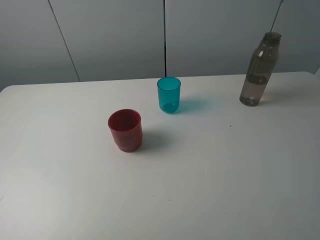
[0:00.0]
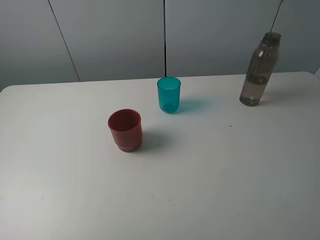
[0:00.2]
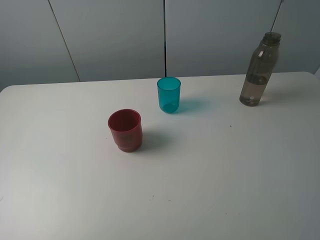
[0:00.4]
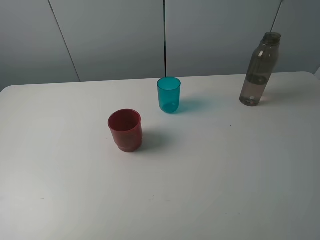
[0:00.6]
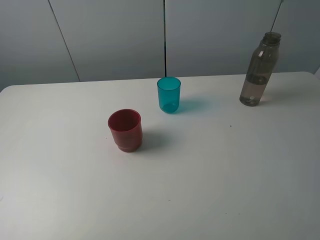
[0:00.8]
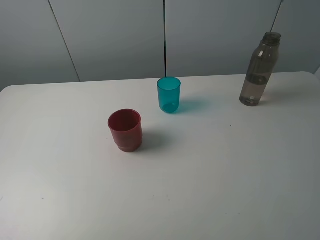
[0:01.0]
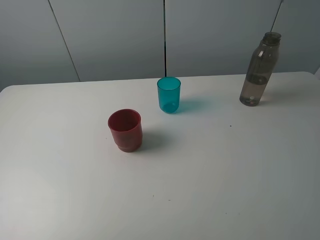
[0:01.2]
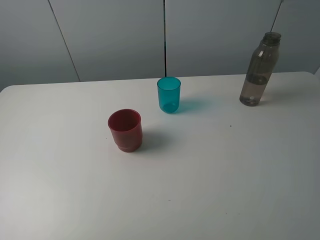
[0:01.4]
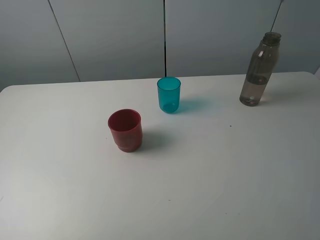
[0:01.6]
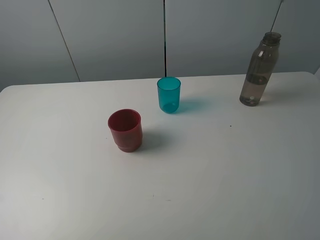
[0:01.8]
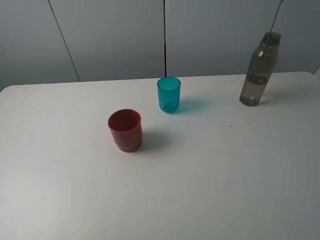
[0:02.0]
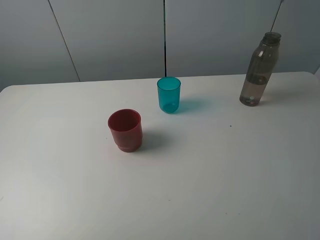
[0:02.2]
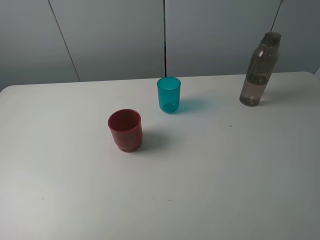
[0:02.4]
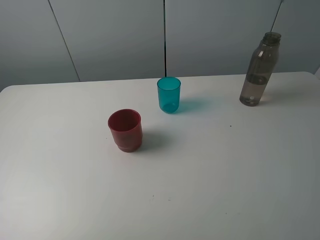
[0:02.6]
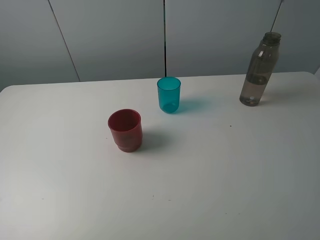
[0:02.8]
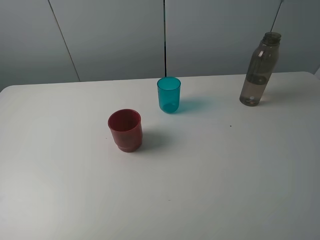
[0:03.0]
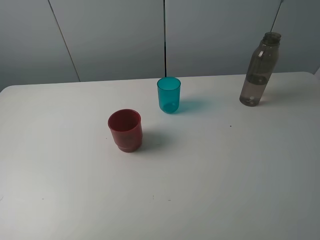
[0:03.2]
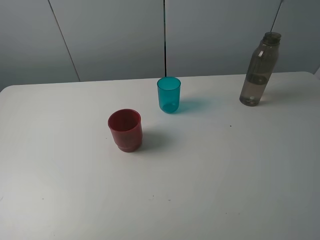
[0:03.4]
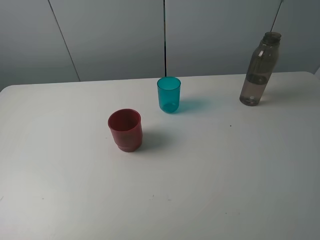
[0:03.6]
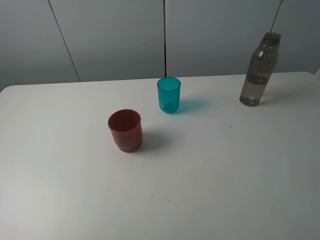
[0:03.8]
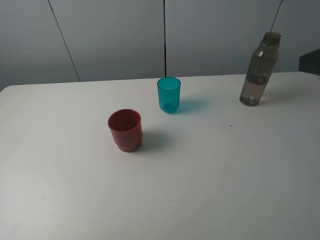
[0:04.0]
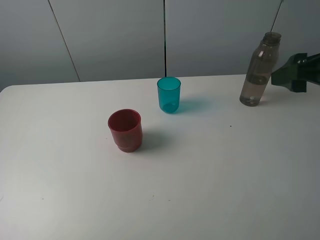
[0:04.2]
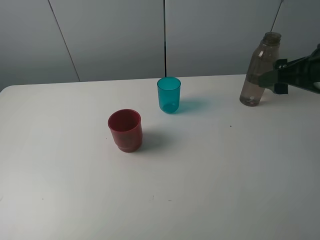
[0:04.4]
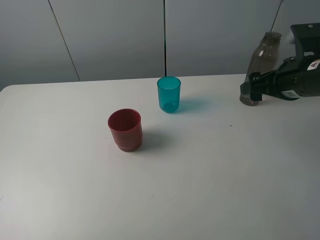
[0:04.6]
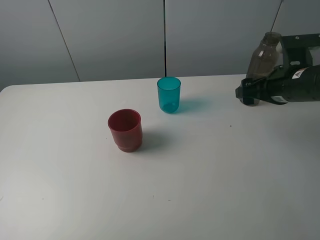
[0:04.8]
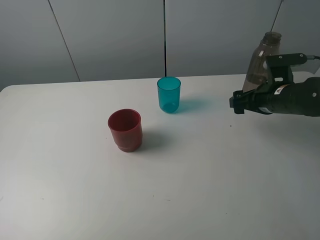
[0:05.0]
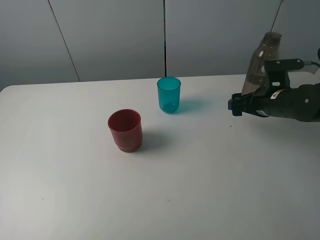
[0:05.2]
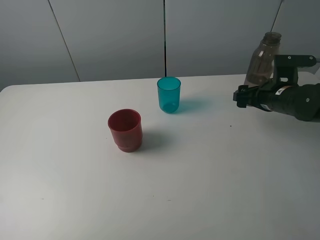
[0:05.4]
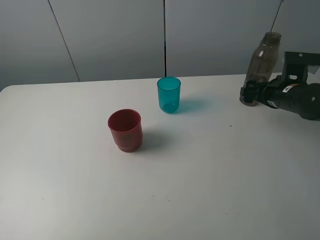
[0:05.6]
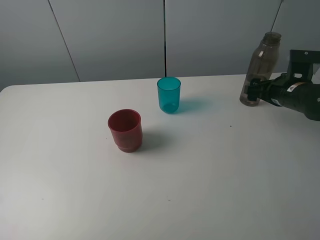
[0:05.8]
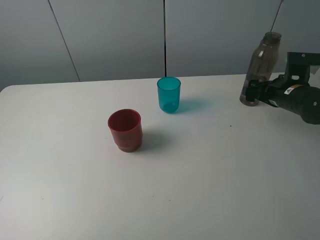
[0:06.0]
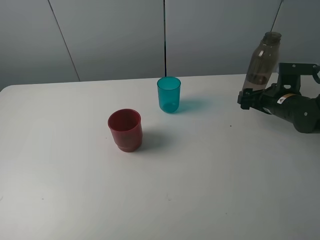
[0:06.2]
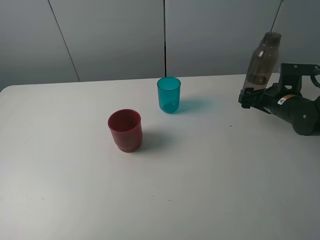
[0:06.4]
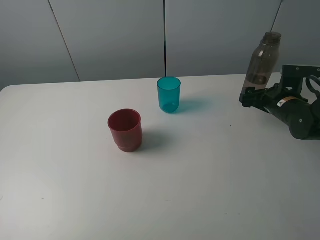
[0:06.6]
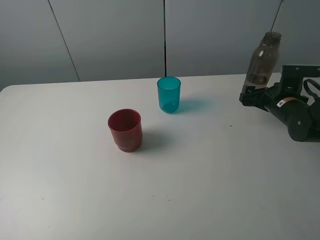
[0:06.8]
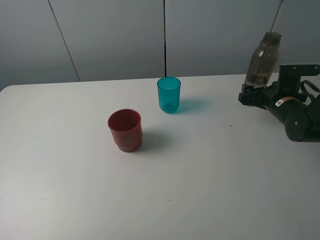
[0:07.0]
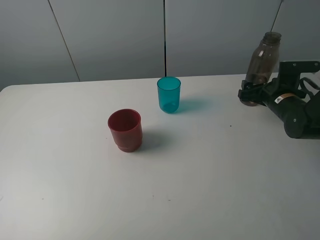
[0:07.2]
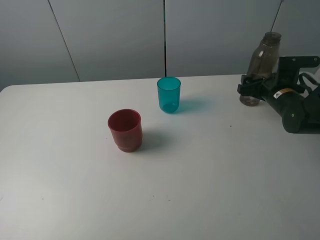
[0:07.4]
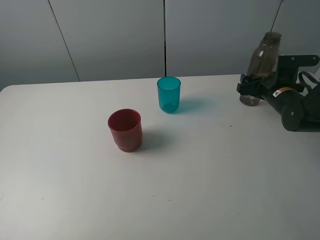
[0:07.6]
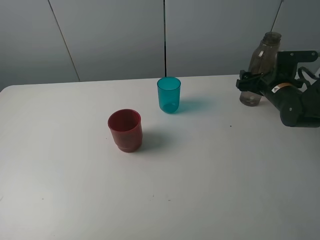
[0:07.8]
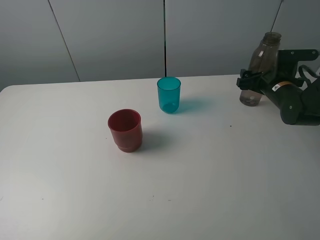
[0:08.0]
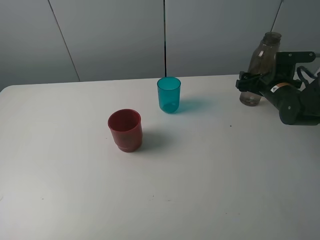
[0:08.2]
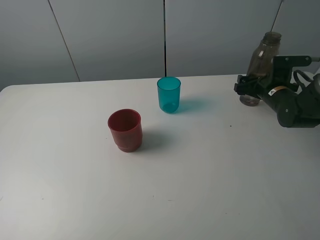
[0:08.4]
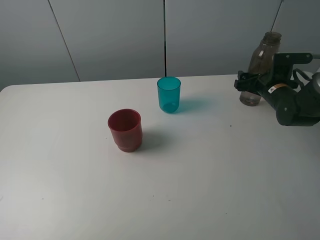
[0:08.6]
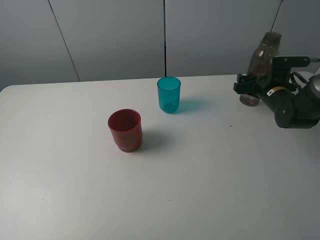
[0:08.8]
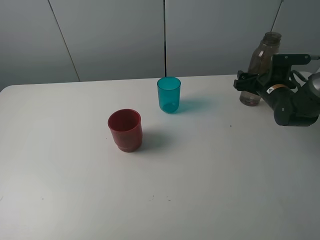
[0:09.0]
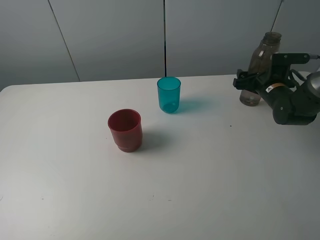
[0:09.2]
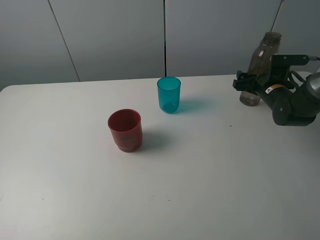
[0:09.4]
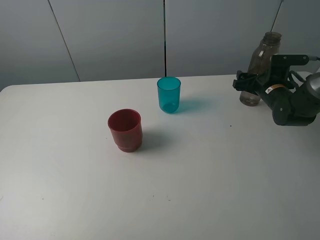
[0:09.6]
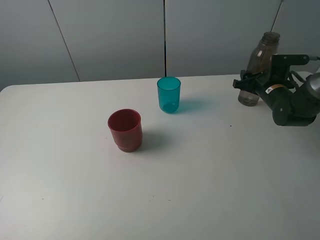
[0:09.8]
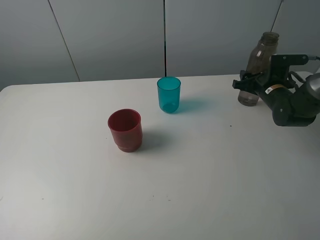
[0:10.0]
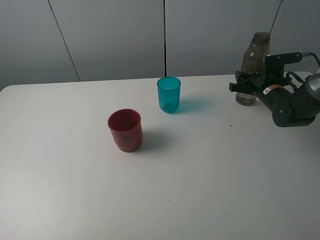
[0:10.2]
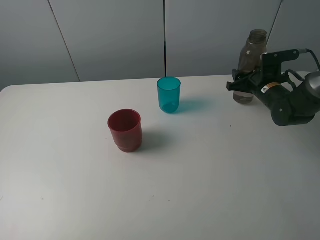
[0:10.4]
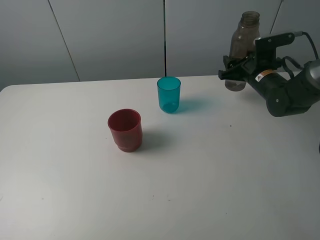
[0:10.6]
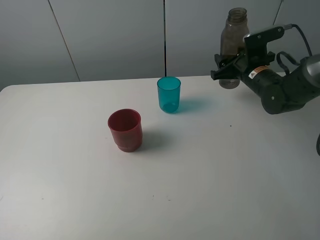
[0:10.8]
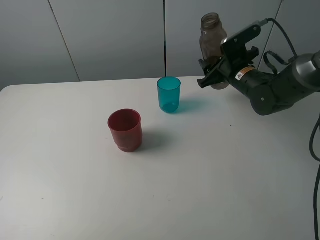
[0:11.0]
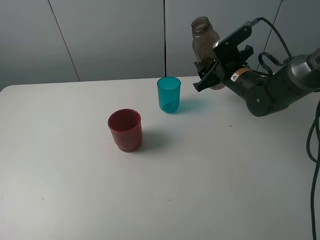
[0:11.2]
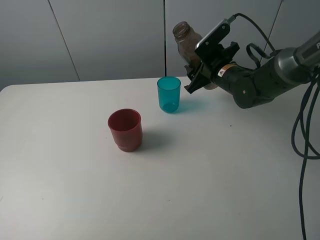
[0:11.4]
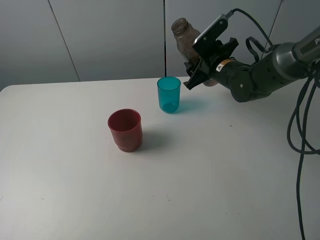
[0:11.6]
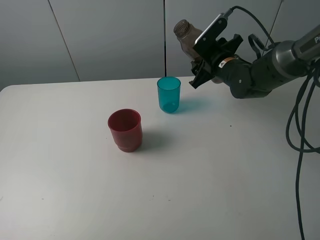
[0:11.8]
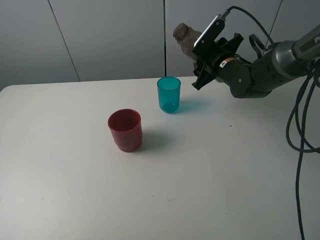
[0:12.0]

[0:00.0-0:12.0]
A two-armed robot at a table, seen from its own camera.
Task of the whole recording: pick up the bottle and pour water into the cup, then pick up the cup containing water and pour it into another cup.
Step, 0:00.0 to 0:10.0: Grasp the brown bottle with the right gripper.
0:00.0 to 0:03.0: The two grippers keep their place.
0:03.0 to 0:04.4: The right gripper goes approximately 25 cm forward.
0:04.4 to 0:06.0: The right gripper moves downward and forward, some 15 cm.
0:06.0 to 0:07.6: The grippers stay close to where they were, moving slightly.
0:07.6 to 0:09.0: The grippers make only small movements.
0:09.0 to 0:10.4: The right gripper closes up.
0:10.4 to 0:12.0: The right gripper heads to the left and upward, covering roughly 10 cm.

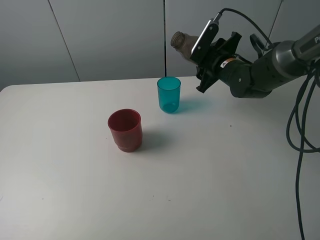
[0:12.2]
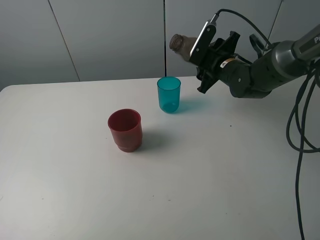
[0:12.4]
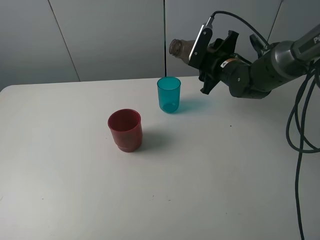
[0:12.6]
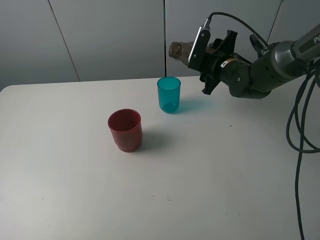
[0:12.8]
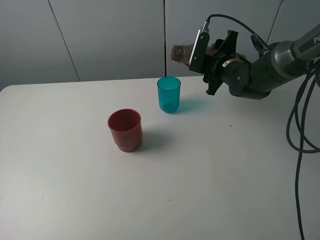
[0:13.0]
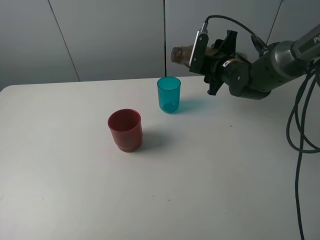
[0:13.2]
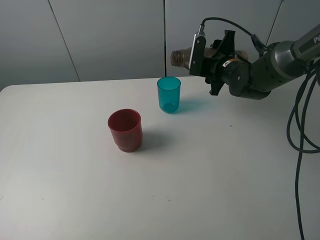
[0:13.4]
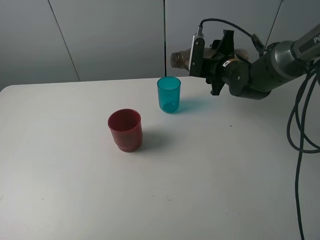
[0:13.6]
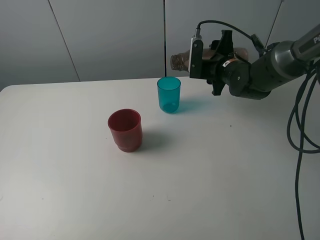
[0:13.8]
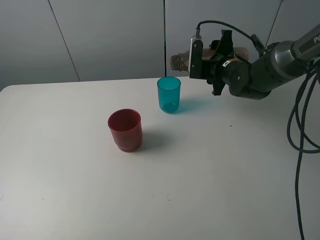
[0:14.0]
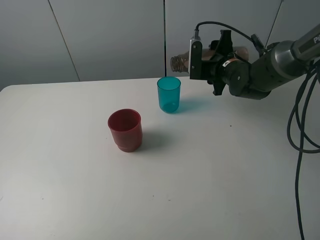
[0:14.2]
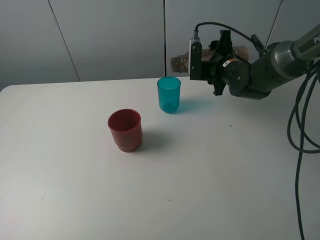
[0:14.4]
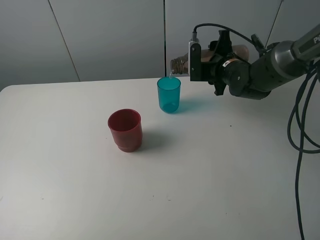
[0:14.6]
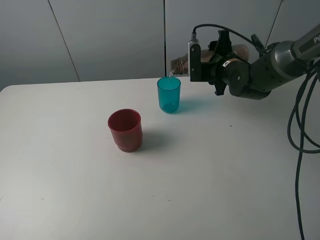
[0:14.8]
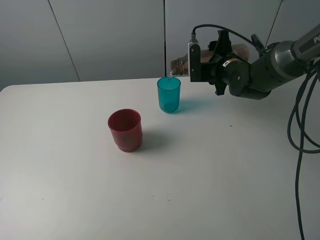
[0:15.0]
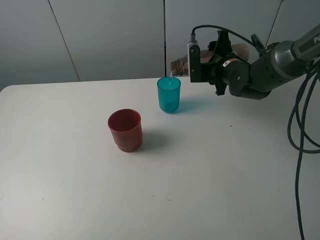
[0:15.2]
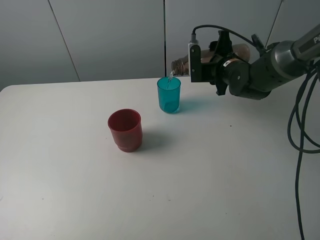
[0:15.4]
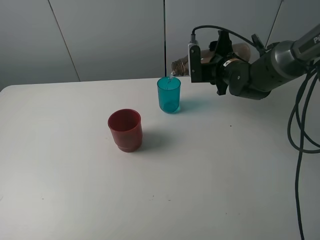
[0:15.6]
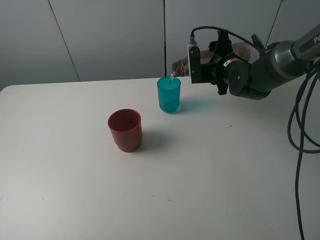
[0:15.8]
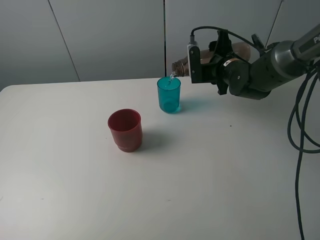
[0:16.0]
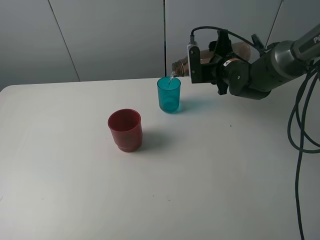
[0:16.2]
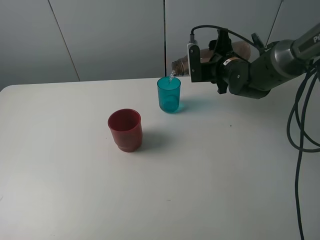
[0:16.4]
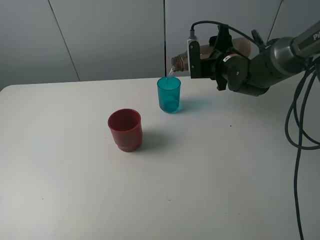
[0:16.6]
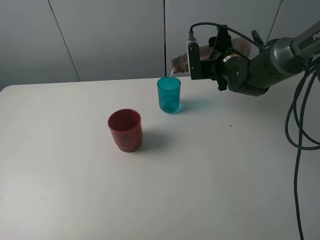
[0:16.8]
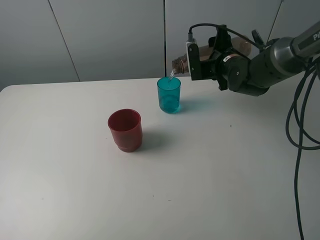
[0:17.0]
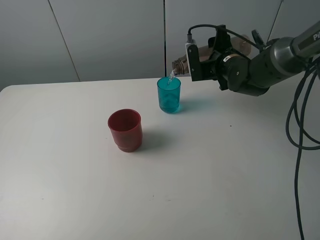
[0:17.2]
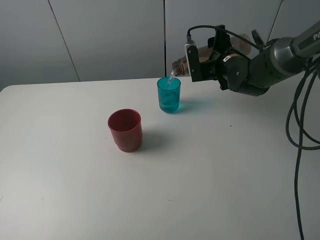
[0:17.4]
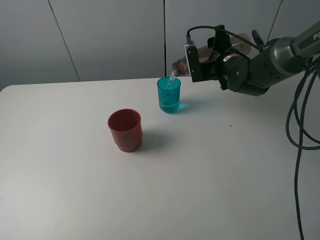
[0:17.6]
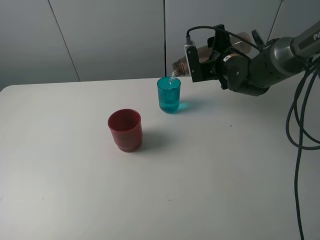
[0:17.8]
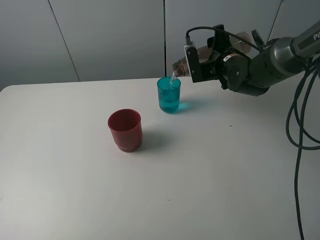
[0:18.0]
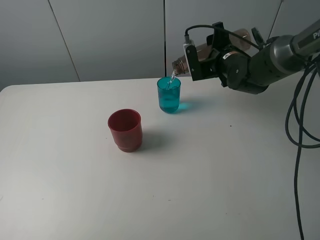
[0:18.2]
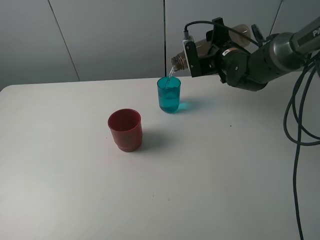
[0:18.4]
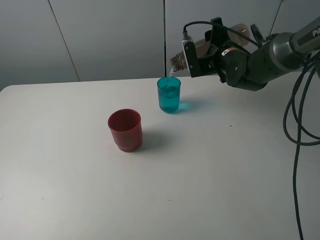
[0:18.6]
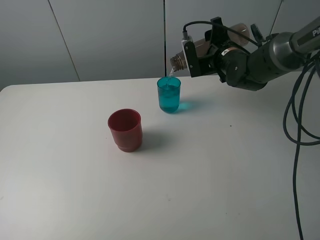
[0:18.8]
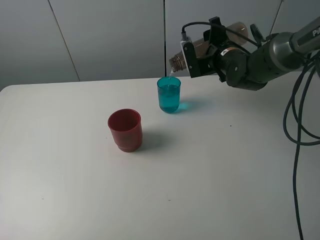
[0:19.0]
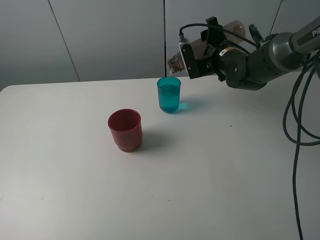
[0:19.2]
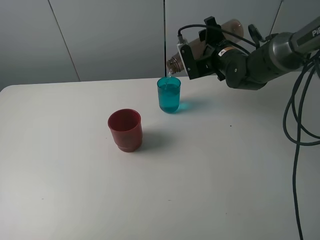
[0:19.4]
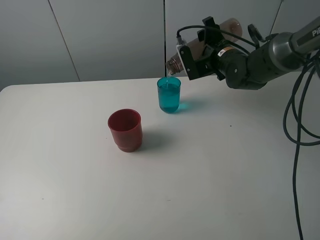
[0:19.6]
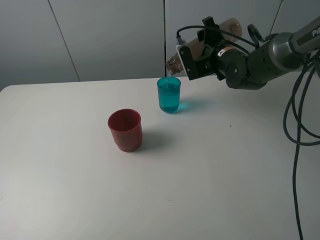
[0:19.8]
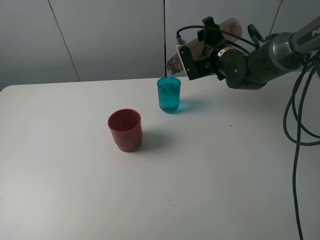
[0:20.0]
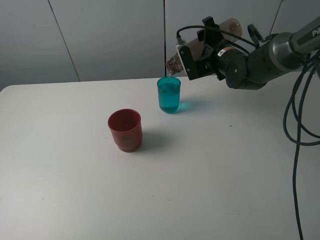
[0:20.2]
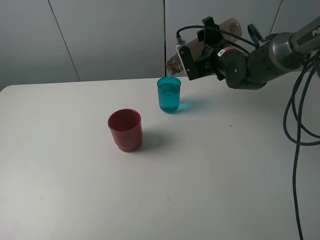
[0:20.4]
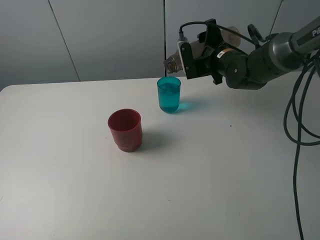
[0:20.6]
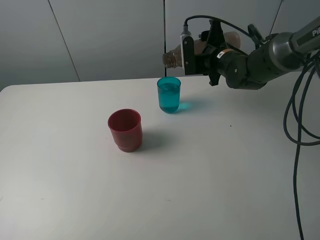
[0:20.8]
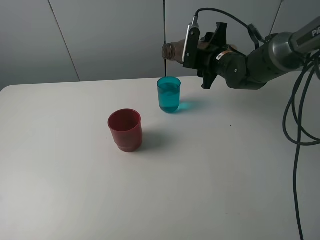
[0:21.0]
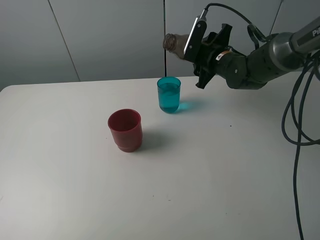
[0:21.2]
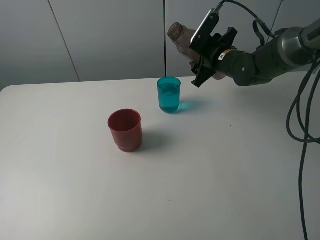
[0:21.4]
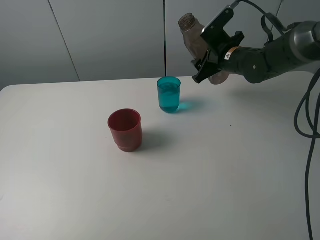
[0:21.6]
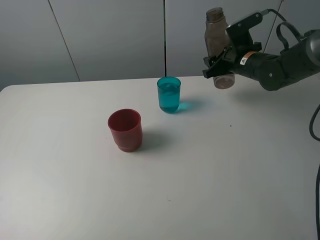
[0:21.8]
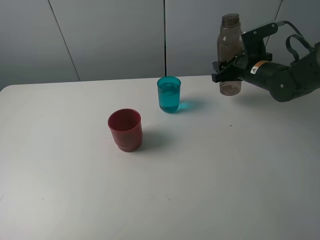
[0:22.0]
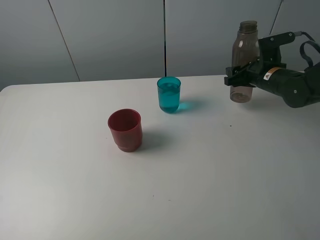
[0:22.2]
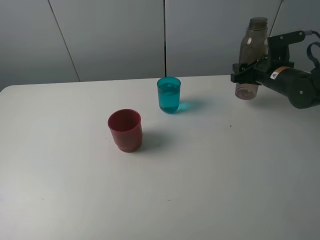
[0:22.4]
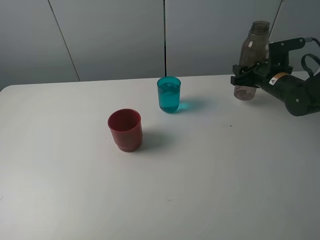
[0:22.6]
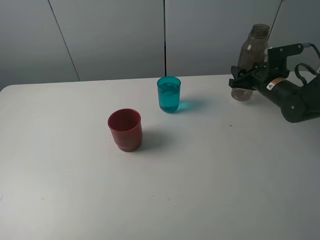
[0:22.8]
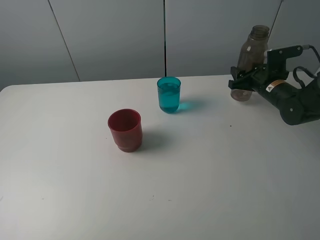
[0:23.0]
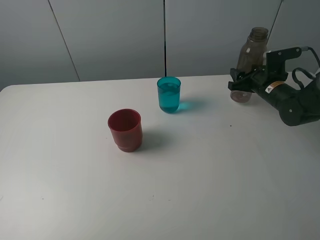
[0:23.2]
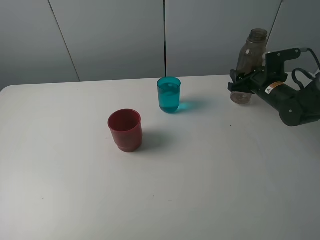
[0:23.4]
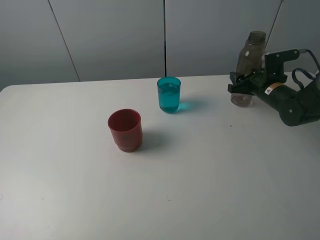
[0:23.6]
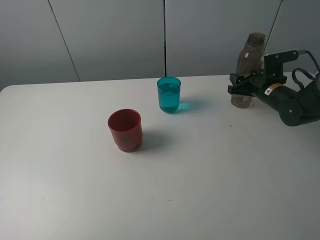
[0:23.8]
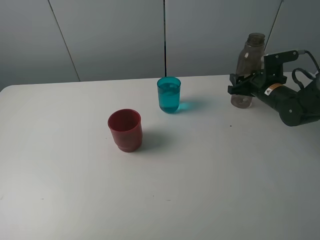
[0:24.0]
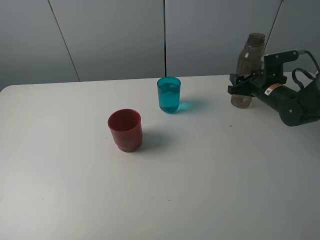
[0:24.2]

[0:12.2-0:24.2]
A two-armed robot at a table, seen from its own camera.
Task of the whole recording: pick up the bottle and pour water into the cup, then pick up the cup containing water and pour it into another cup.
Step, 0:12.2 to 0:20.6: Pour water from brown bottle to blue cup with the right gripper.
0:13.8 to 0:15.2: There are only small adjustments of the grippers.
0:15.2 to 0:16.6: Both grippers stay about where they are.
0:16.6 to 0:19.8: There are only small adjustments of the grippers.
0:21.2 to 0:22.6: The right gripper travels to the right by some 15 cm.
0:22.6 to 0:24.2: The grippers stay close to where they were, moving slightly.
